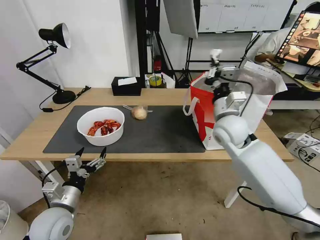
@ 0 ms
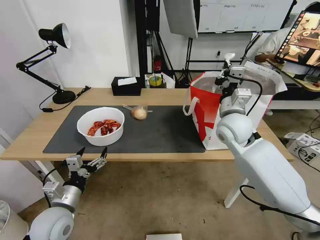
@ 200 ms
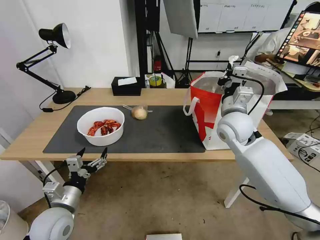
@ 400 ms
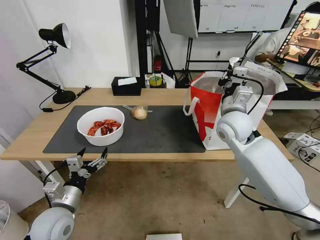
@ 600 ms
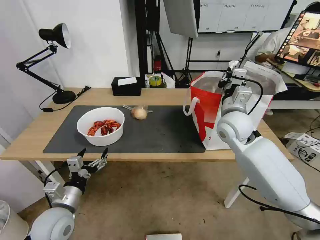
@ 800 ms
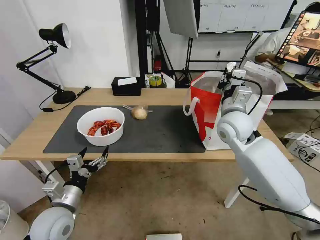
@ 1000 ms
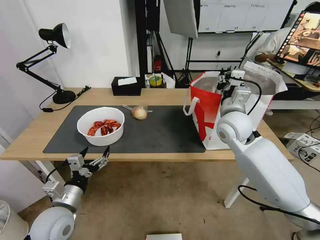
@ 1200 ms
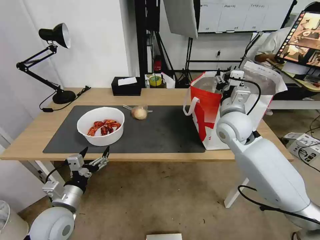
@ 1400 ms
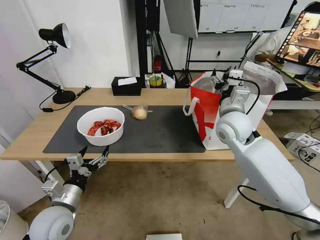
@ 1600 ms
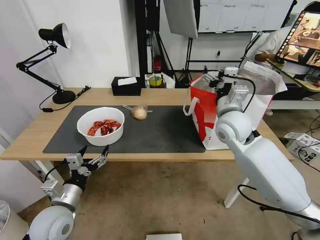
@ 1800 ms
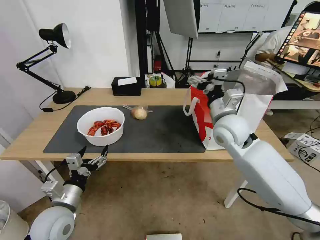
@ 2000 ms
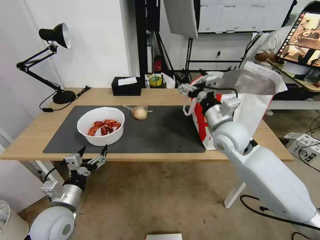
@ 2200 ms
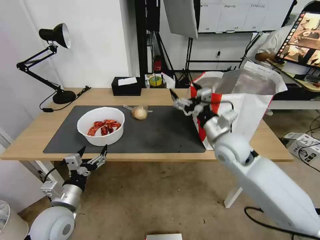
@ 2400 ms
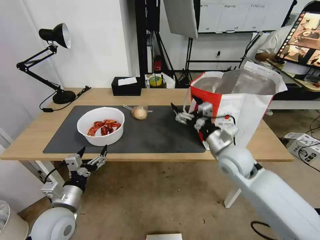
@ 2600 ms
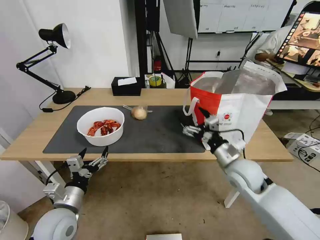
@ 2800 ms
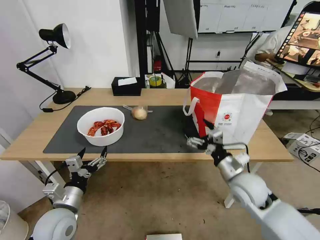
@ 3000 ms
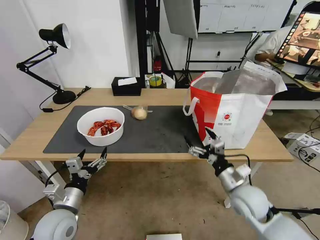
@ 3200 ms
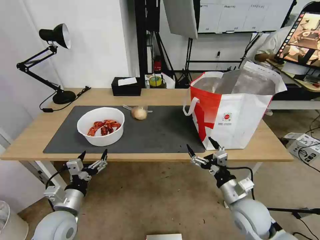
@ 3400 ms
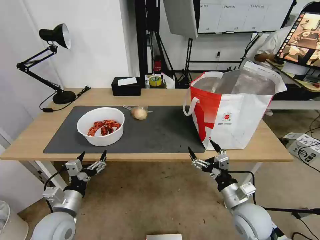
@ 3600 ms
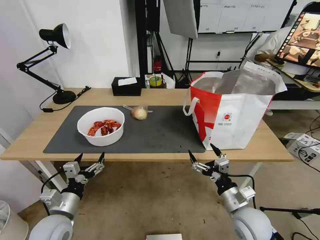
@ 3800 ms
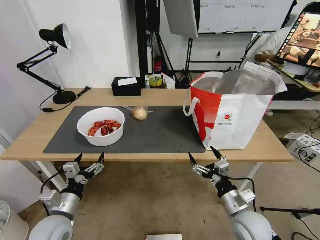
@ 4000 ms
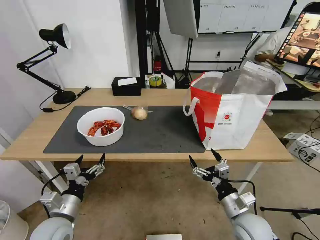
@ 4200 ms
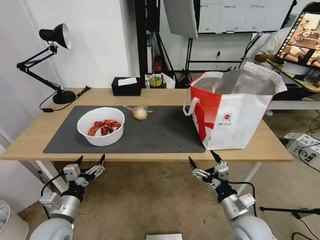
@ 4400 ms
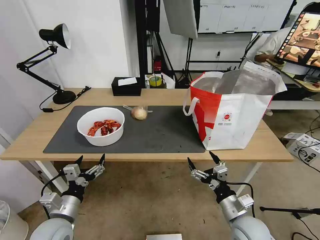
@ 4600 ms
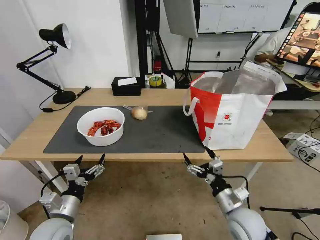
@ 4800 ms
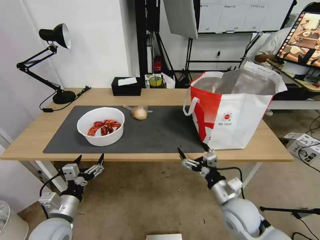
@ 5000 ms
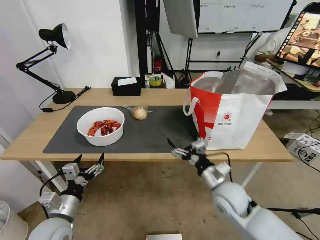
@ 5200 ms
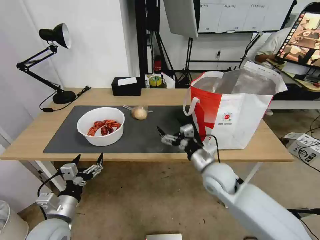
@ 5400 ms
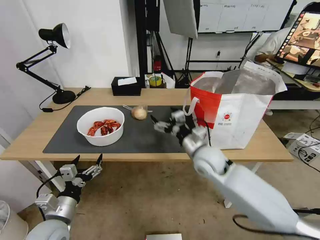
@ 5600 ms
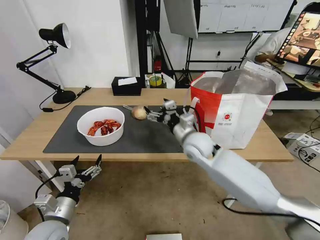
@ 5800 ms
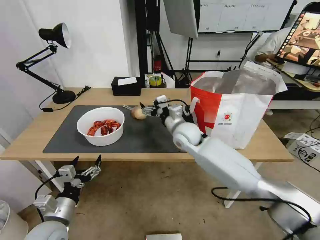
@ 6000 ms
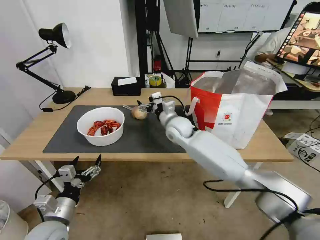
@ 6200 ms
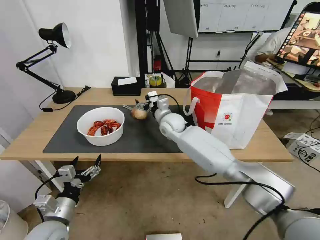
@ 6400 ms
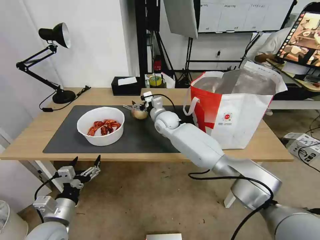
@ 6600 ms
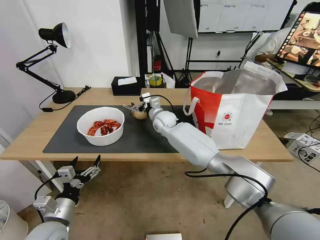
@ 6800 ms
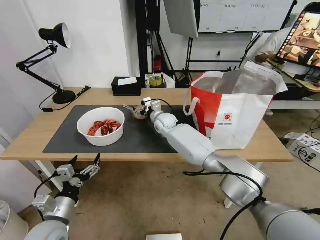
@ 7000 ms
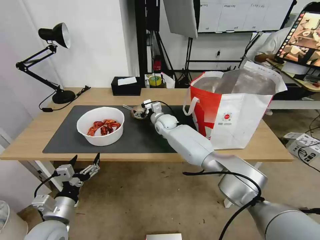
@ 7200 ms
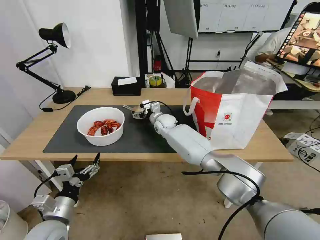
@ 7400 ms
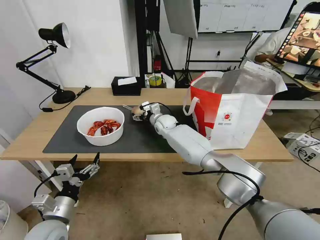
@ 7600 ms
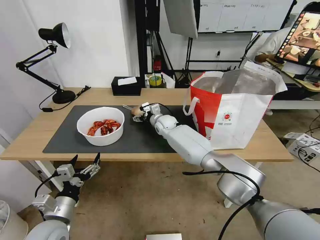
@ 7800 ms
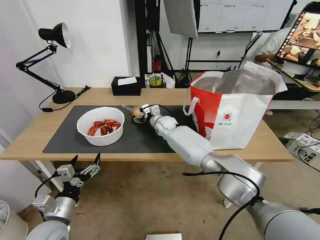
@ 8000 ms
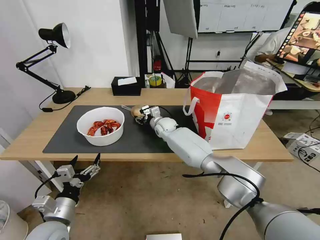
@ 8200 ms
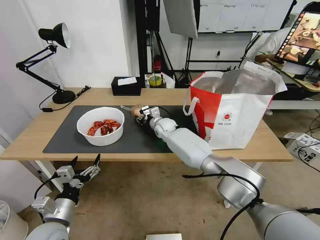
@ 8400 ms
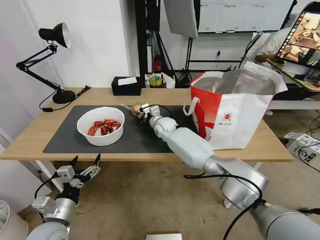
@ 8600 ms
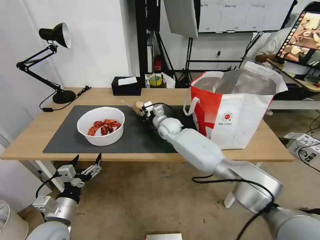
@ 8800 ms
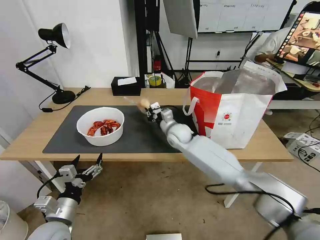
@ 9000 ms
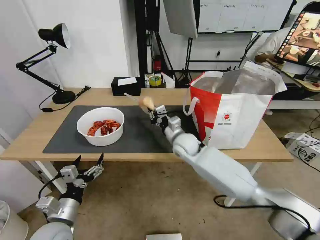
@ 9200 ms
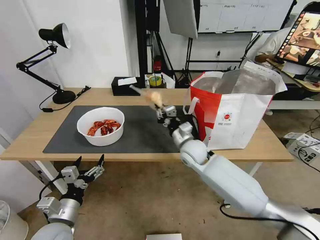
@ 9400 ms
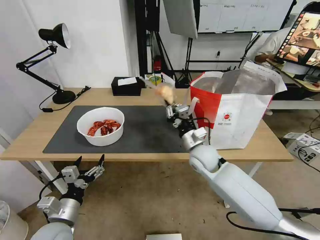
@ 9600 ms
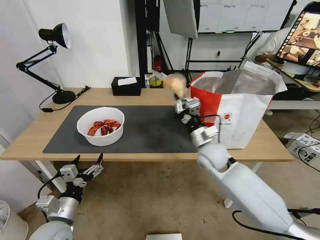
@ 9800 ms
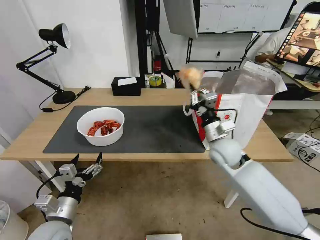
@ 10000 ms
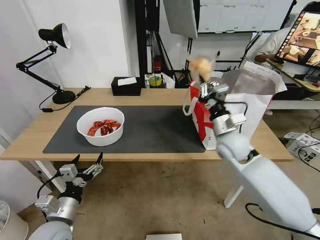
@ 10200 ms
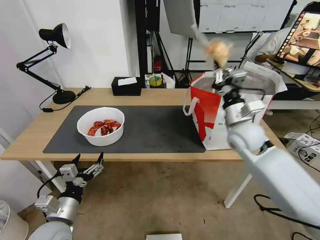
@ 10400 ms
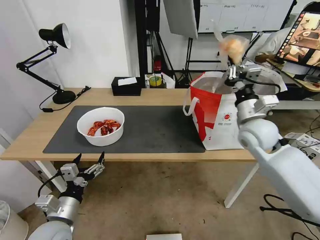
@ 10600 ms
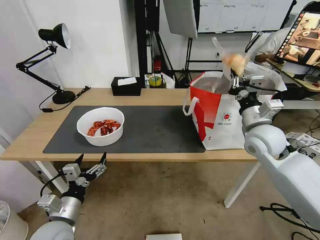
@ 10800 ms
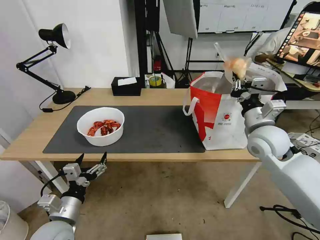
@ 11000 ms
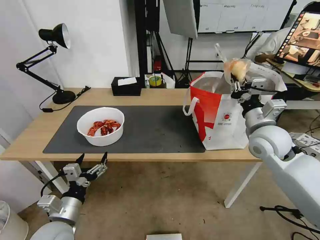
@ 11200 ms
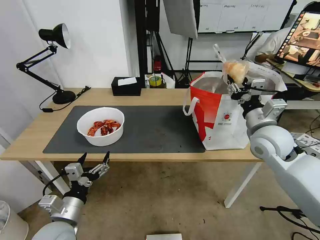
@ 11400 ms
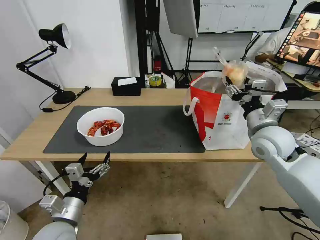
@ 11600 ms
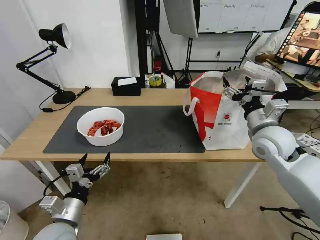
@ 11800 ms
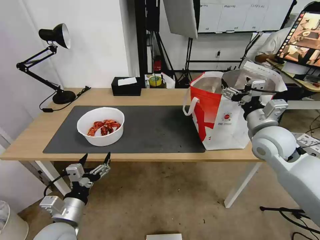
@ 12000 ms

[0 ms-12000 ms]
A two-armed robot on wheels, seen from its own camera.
Task of the whole recording: Pick up the trash from the table and place it into the takeout bag.
0 ms to 1600 ms: The right gripper opens up.
1600 ms to 3000 ms: The right gripper shifts roughly 20 cm downward and backward.
3000 ms to 4400 ms: The right gripper is displaced backward and downward by roughly 15 cm.
4400 ms to 6000 ms: The right gripper travels forward, to the left and upward by roughly 35 cm.
6000 ms to 7600 ms: The right gripper shifts some 15 cm forward, to the left and downward.
7600 ms to 9000 ms: The right gripper moves backward and to the right, some 10 cm, and closes.
9000 ms to 10400 ms: The right gripper moves to the right, upward and backward, some 20 cm.
10400 ms to 12000 ms: The right gripper goes about 5 cm to the right, and opens up.

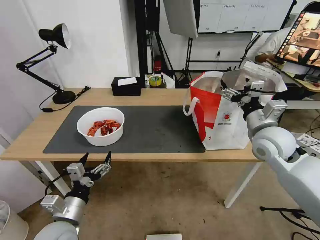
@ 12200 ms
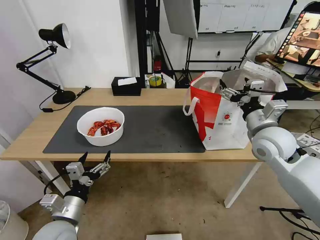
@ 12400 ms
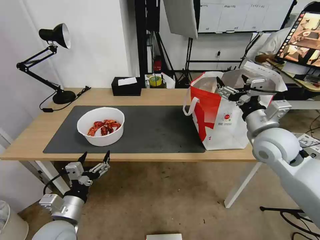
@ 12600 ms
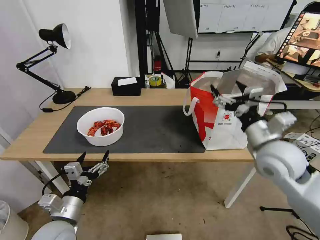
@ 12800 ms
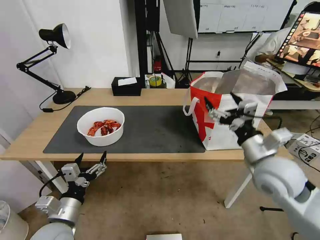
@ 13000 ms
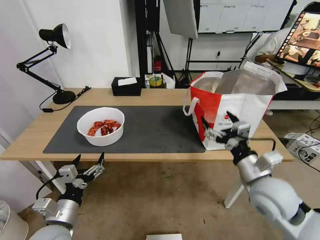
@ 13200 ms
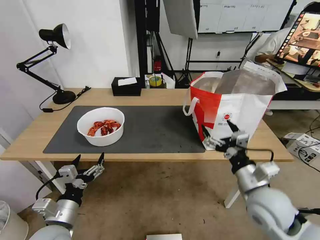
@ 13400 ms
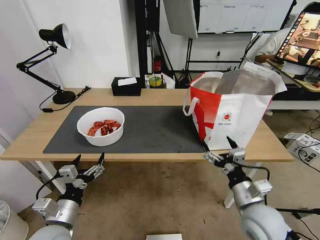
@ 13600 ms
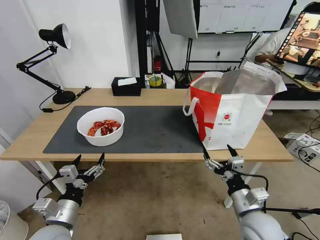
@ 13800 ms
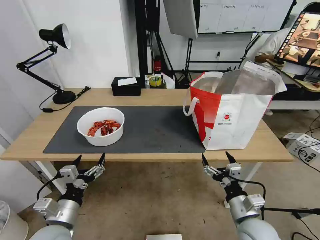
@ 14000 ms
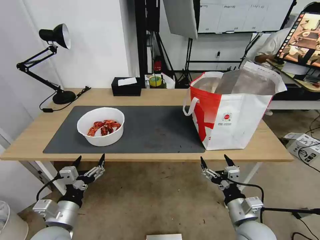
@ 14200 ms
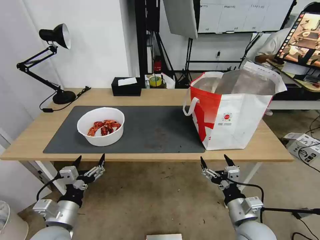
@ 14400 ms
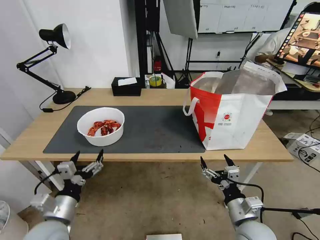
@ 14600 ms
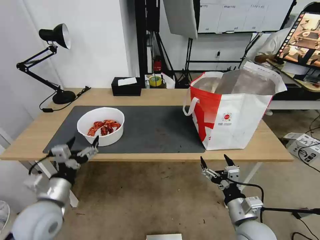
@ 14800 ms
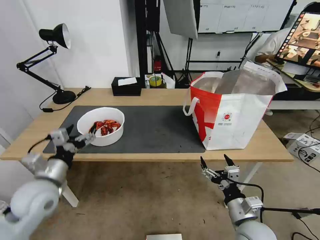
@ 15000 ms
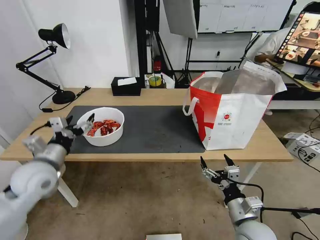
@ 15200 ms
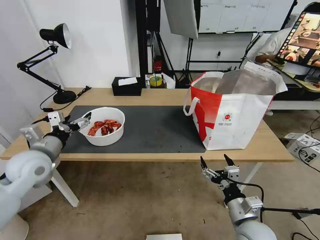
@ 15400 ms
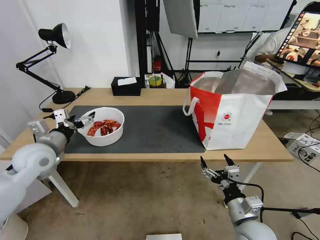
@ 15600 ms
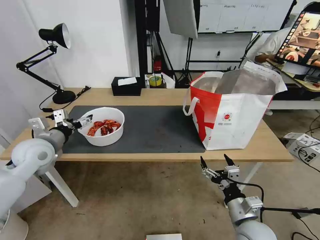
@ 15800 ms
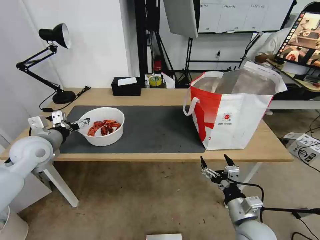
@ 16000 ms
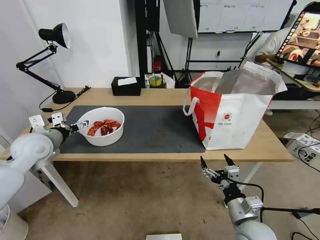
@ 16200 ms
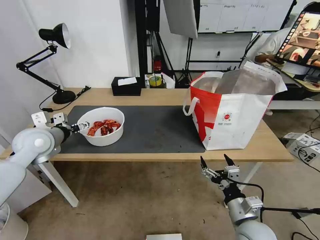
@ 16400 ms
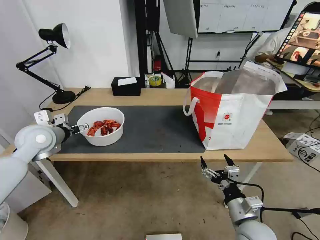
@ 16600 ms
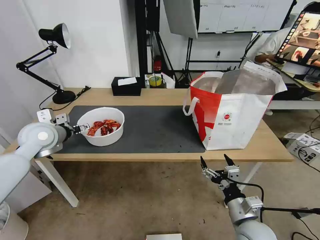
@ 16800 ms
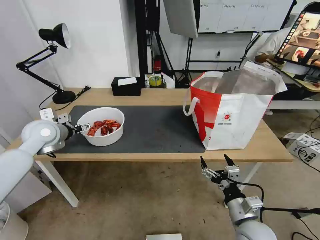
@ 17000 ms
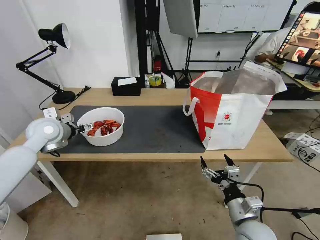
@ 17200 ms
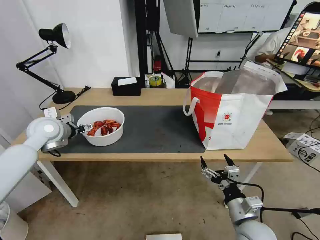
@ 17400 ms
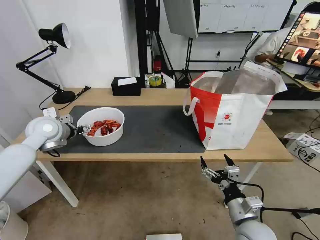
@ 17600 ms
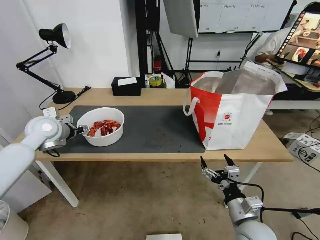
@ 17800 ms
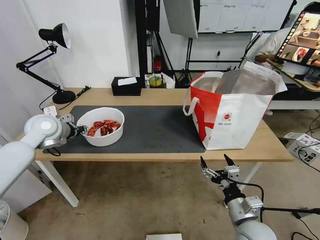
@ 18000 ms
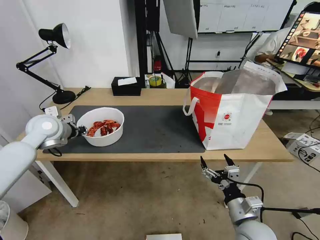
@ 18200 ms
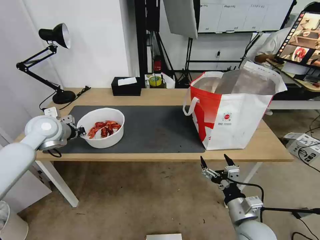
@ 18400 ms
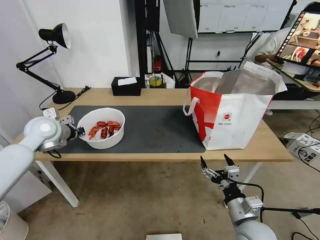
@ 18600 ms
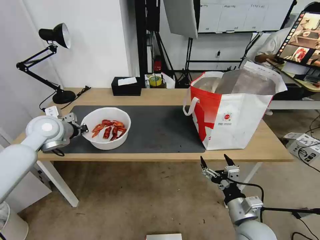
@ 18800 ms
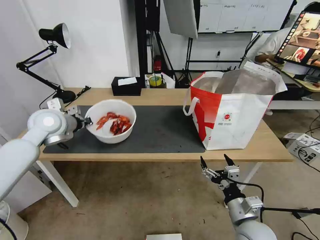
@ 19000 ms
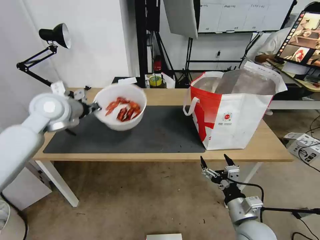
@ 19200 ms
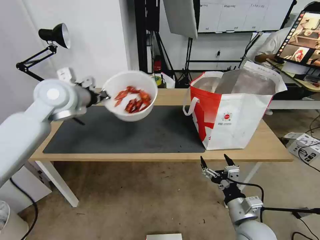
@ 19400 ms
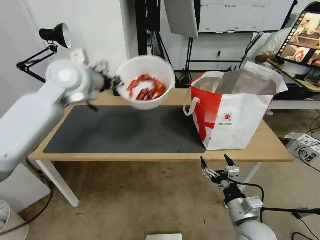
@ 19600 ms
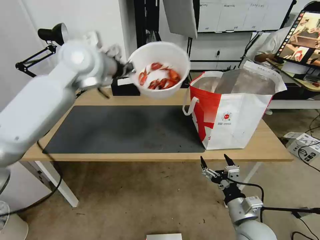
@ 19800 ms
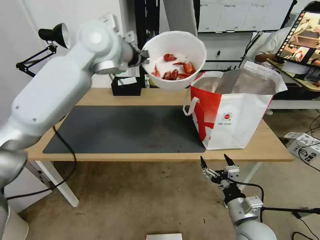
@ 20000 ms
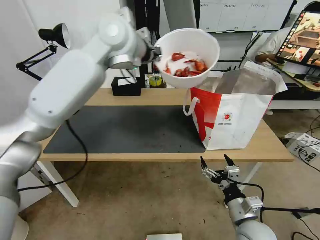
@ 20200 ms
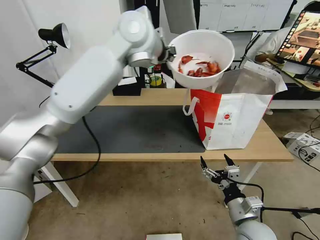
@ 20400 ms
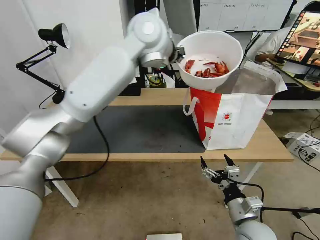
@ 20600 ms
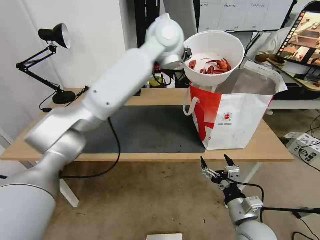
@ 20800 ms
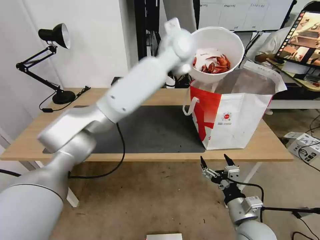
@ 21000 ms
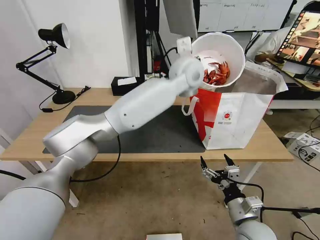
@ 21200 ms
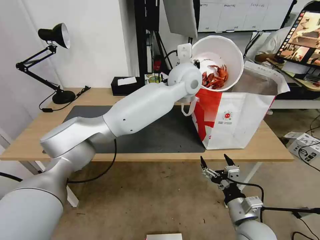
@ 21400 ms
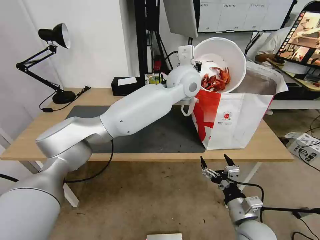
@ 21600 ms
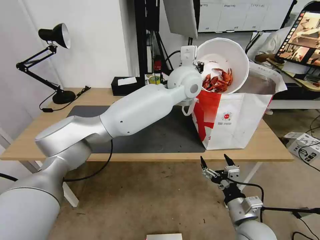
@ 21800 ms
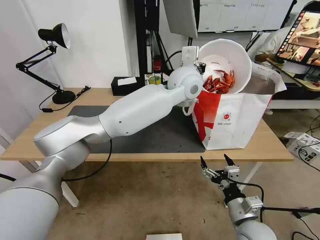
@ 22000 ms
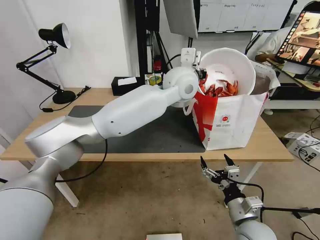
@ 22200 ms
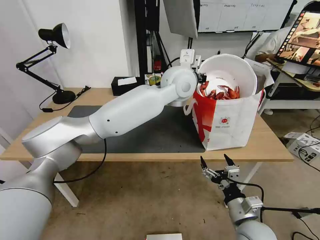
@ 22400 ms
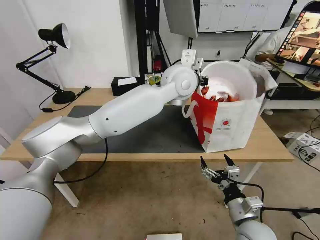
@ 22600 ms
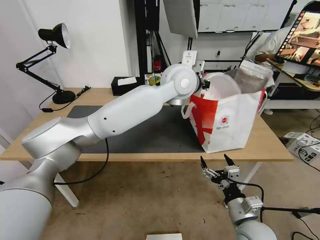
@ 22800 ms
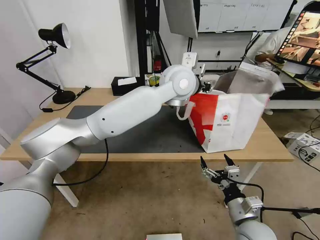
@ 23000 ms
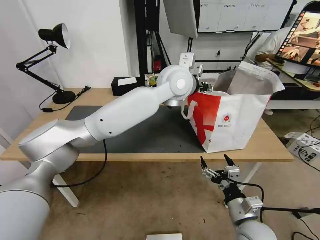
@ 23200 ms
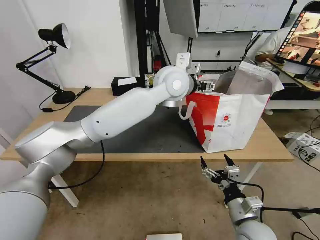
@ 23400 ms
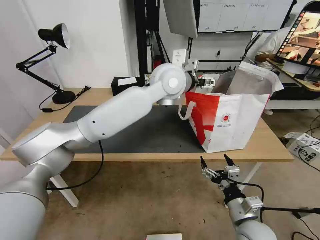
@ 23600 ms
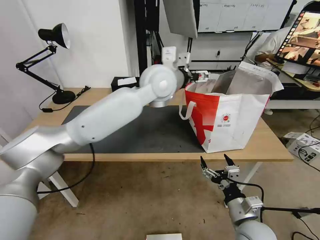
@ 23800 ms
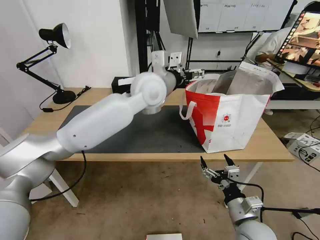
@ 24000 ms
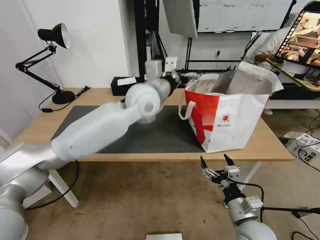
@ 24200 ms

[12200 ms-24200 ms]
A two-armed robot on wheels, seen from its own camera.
Task of the whole recording: Pick up the trash from the table and place it into the takeout bag.
12200 ms to 13800 ms: The right gripper is displaced backward and downward by some 25 cm.
13800 ms to 15200 ms: The left gripper is displaced forward, upward and to the left by some 20 cm.
15200 ms to 16600 ms: The left gripper is displaced forward by some 10 cm.
16600 ms to 18200 ms: The left gripper closes up.
18200 ms to 19800 ms: The left gripper shifts some 25 cm upward and to the right.
19800 ms to 21200 ms: The left gripper shifts approximately 25 cm to the right.
22600 ms to 24200 ms: The left gripper travels to the left and downward by about 10 cm, and opens its fingers.
